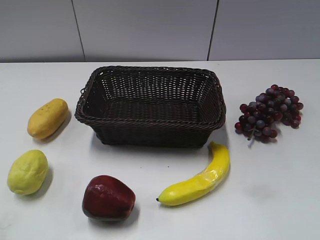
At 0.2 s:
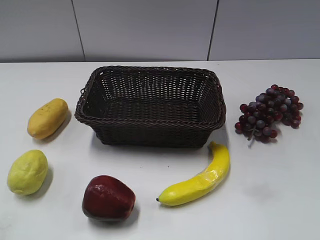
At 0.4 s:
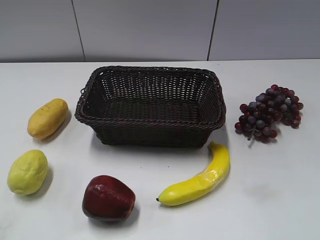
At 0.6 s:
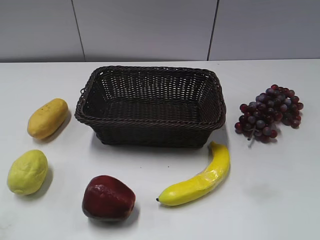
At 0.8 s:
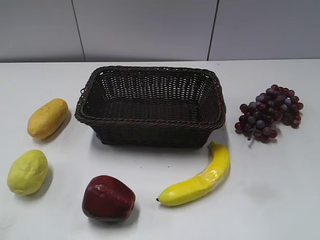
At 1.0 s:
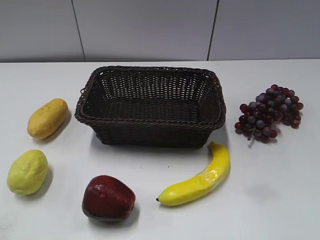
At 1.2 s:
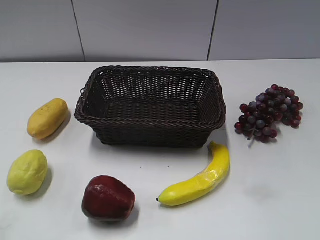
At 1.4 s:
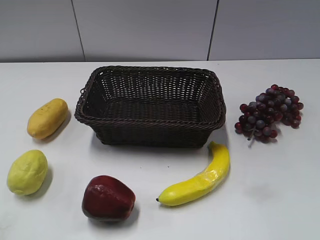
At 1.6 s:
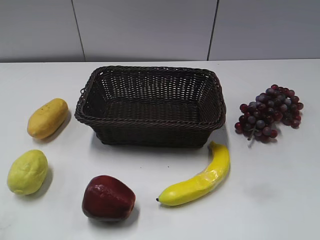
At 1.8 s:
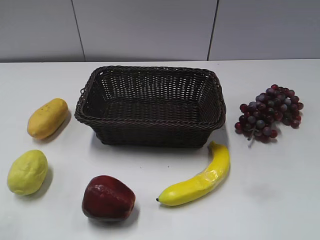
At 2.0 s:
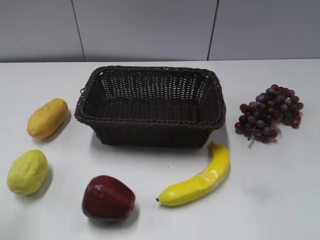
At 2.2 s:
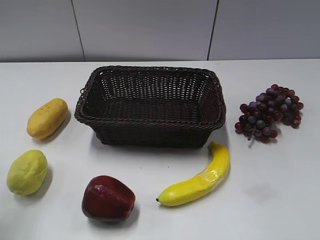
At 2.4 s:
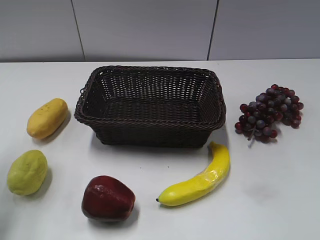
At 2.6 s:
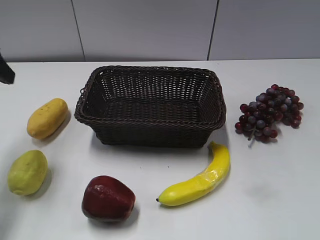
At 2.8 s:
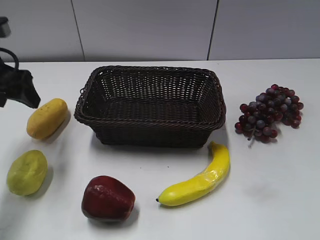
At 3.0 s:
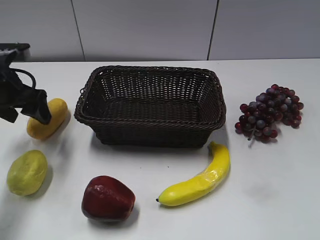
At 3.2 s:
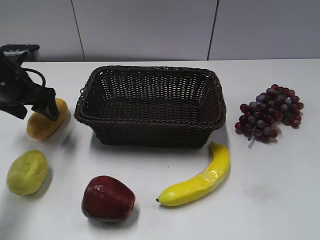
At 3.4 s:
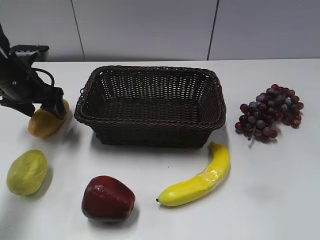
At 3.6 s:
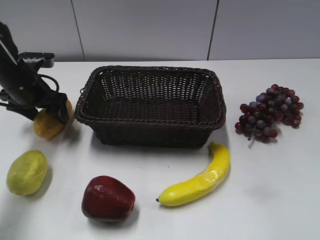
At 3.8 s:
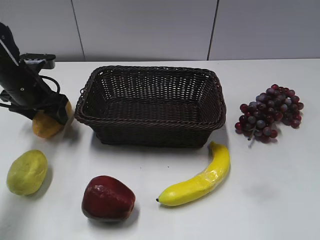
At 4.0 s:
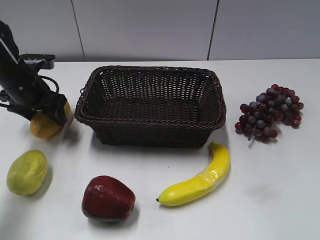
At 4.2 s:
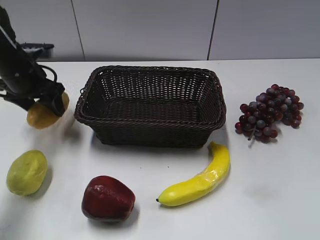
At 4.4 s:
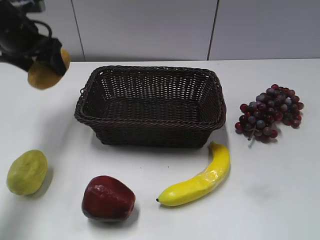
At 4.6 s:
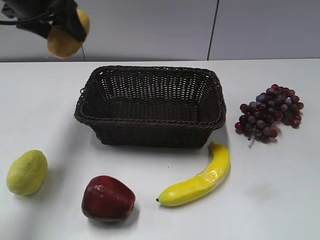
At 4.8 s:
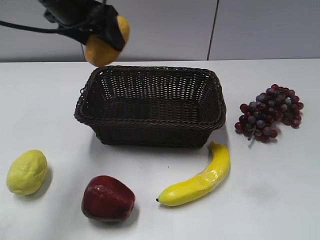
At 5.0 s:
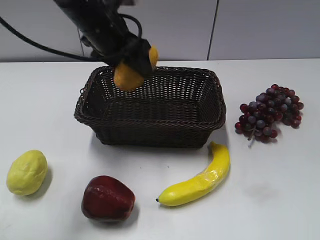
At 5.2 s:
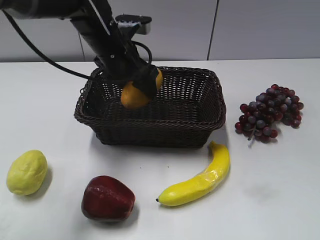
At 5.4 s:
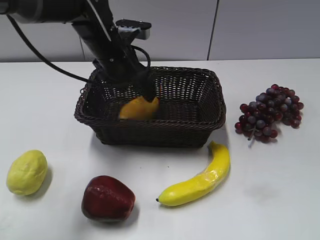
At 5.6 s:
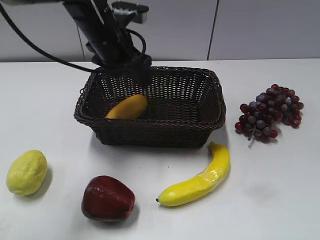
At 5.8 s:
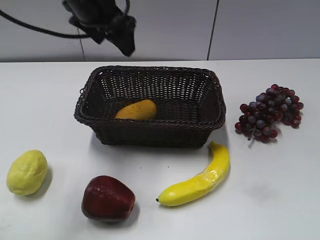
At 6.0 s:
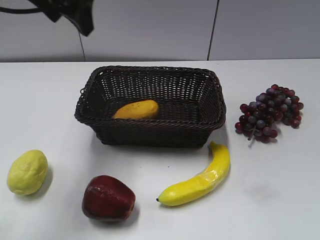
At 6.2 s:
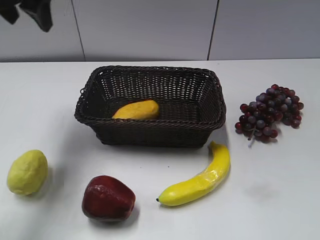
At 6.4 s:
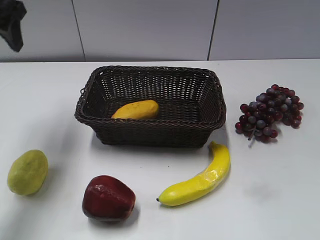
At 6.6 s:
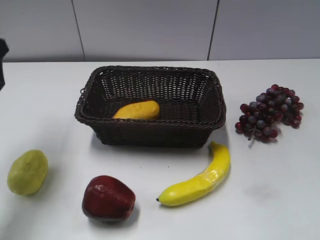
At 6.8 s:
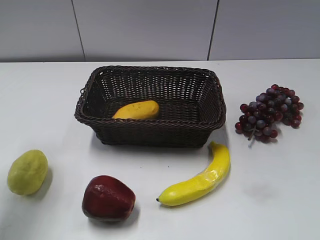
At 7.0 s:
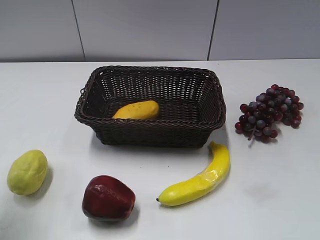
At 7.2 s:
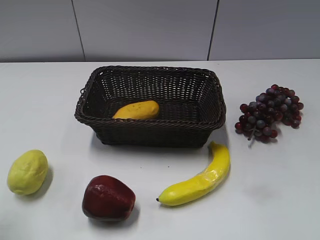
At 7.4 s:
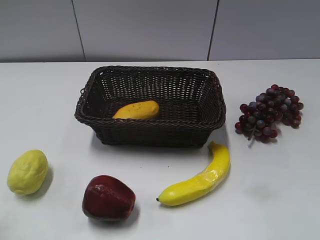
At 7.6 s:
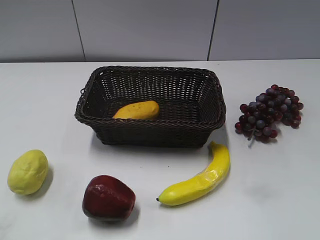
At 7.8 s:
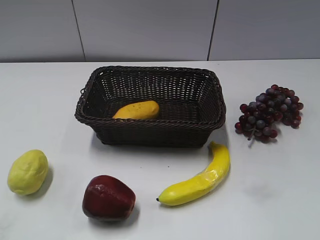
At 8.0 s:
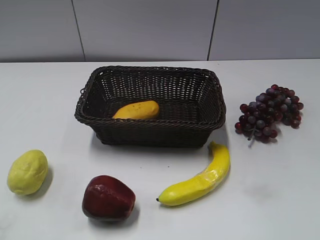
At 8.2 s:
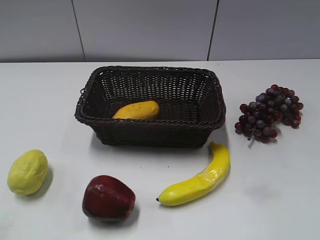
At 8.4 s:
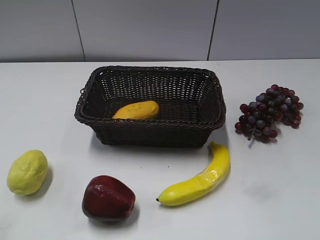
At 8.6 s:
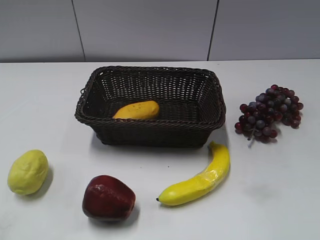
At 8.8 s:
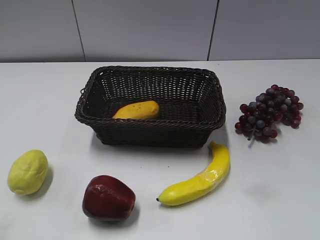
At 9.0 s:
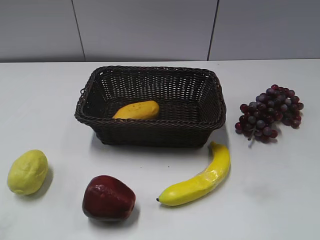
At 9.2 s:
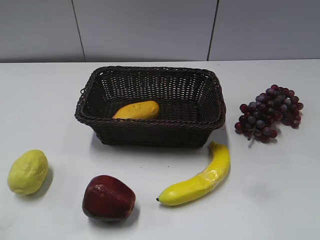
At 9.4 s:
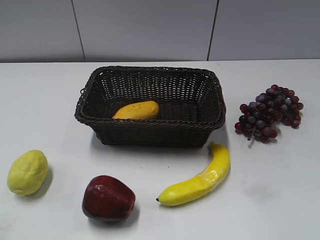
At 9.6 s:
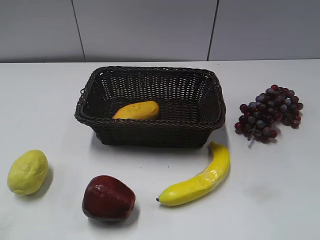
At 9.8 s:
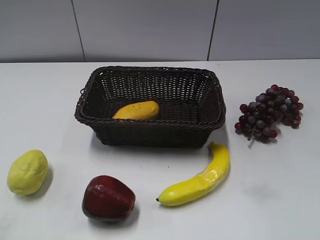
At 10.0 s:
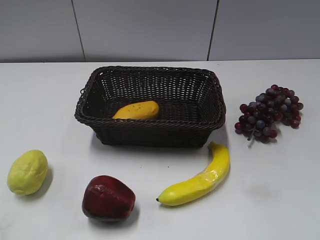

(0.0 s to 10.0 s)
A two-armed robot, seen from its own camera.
Step, 2.6 s - 3.8 s: Grasp the mango with left gripper.
Step, 4.0 s - 5.4 s: Place the mango in the basket with left gripper.
1.4 s - 2.8 s: The left gripper travels forward by approximately 35 cm.
2.8 s - 4.2 s: The left gripper moves forward and downward, approximately 10 cm, and opens, then closes once more.
4.2 s - 5.8 s: The left gripper travels to the right and upward by about 20 cm, and opens its fingers.
5.8 s - 7.2 s: The left gripper is displaced backward and to the left by some 30 cm, and closes its fingers.
